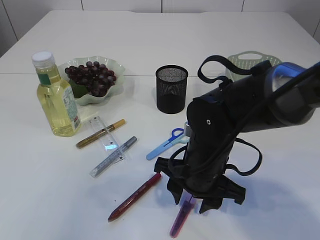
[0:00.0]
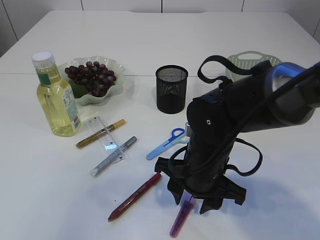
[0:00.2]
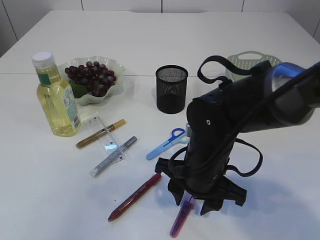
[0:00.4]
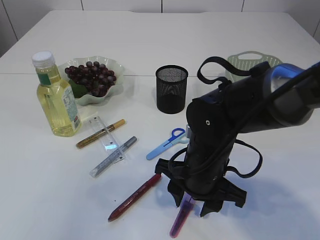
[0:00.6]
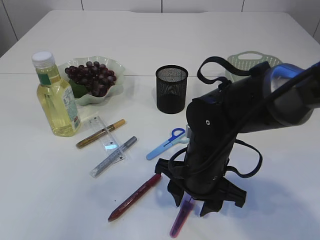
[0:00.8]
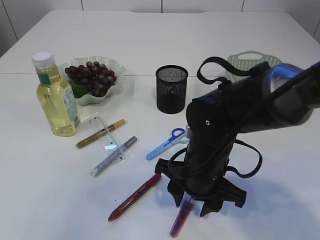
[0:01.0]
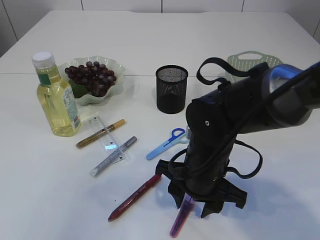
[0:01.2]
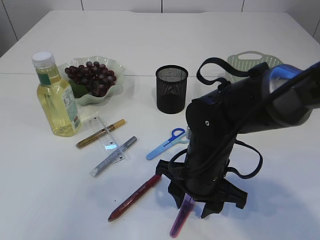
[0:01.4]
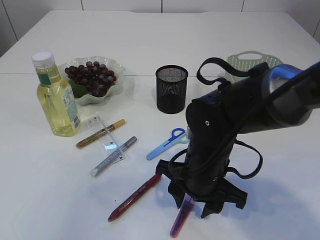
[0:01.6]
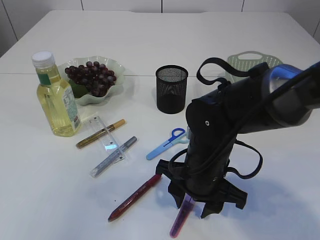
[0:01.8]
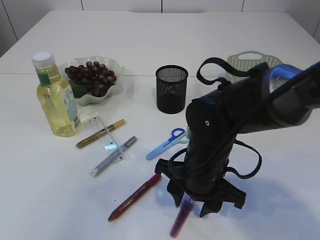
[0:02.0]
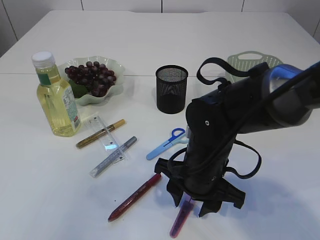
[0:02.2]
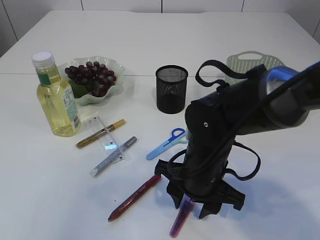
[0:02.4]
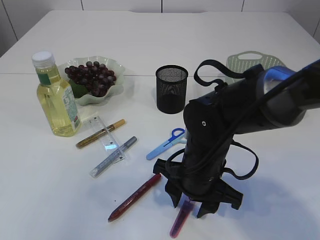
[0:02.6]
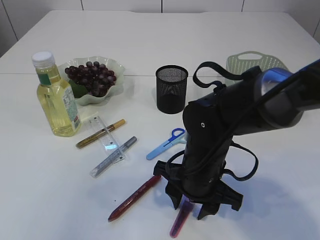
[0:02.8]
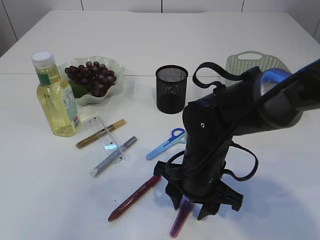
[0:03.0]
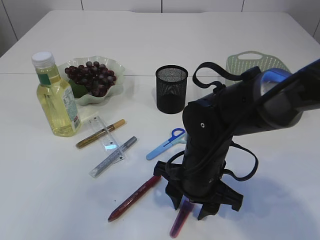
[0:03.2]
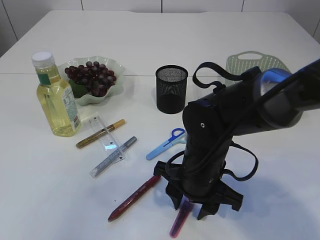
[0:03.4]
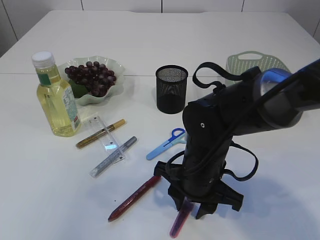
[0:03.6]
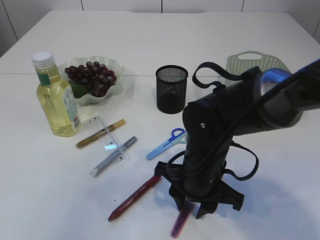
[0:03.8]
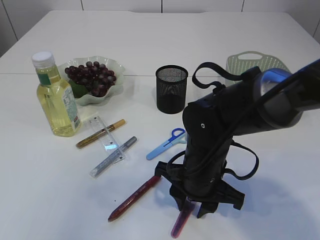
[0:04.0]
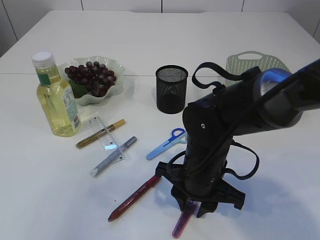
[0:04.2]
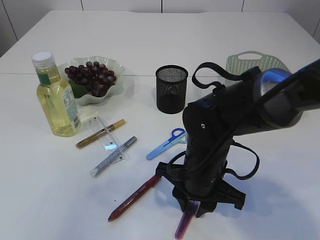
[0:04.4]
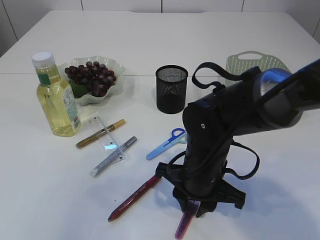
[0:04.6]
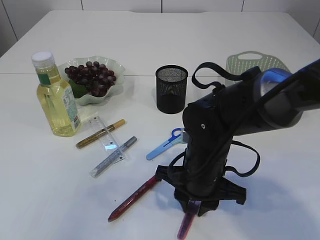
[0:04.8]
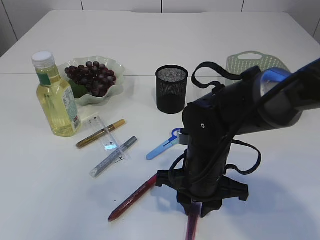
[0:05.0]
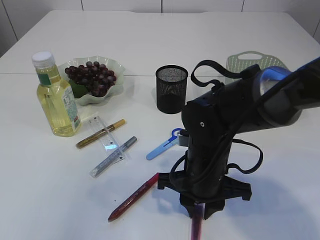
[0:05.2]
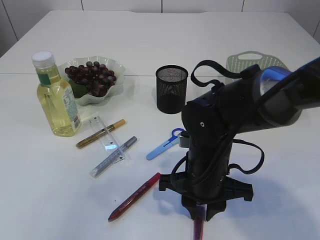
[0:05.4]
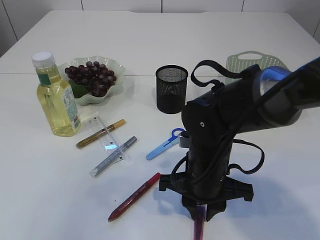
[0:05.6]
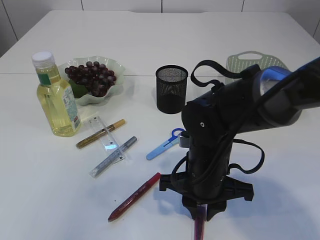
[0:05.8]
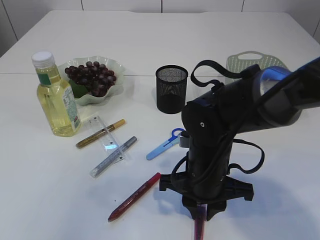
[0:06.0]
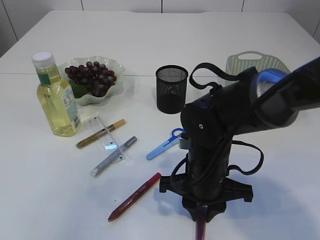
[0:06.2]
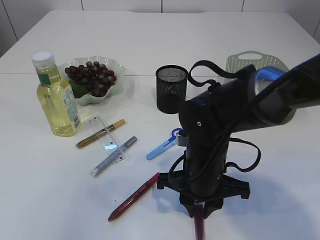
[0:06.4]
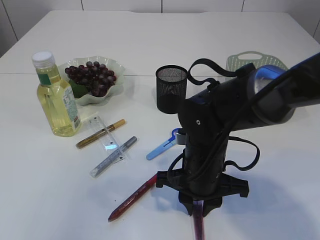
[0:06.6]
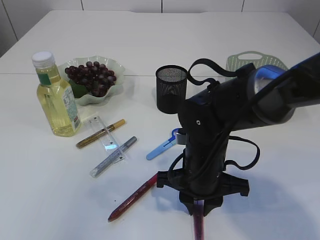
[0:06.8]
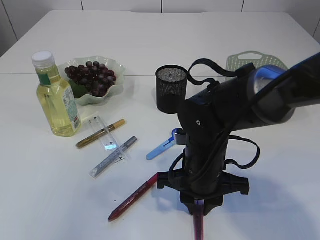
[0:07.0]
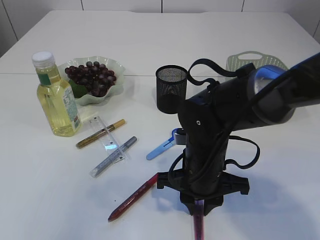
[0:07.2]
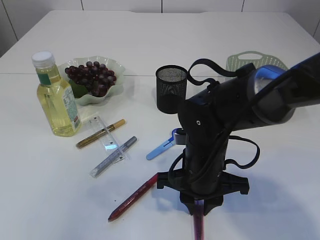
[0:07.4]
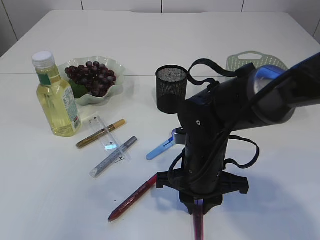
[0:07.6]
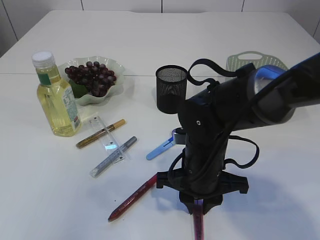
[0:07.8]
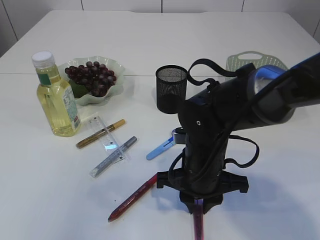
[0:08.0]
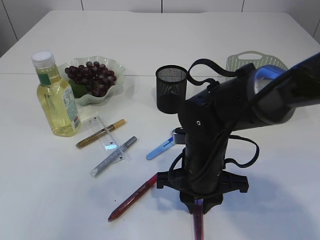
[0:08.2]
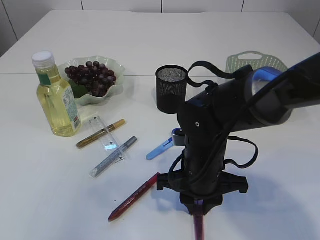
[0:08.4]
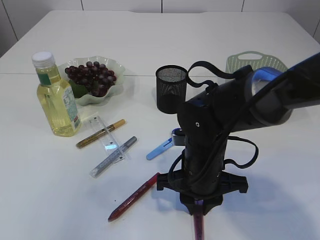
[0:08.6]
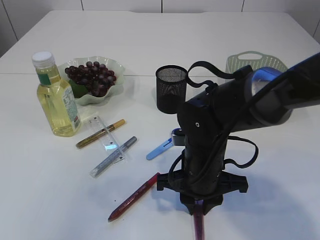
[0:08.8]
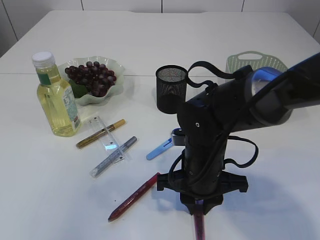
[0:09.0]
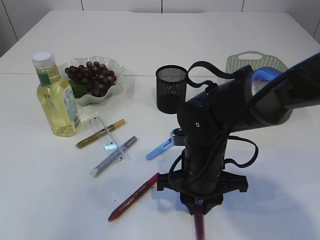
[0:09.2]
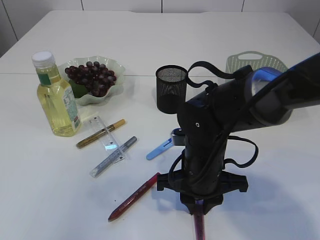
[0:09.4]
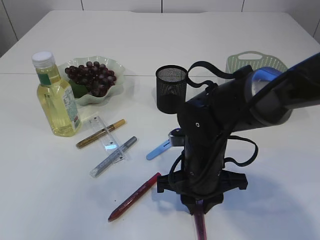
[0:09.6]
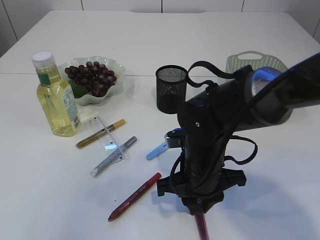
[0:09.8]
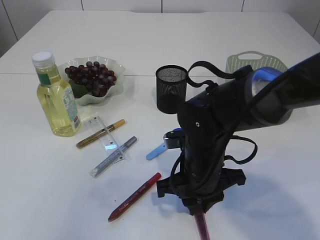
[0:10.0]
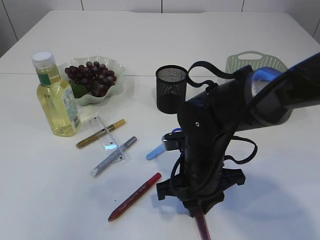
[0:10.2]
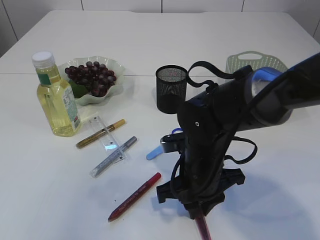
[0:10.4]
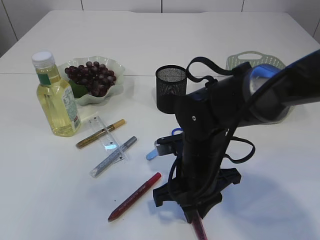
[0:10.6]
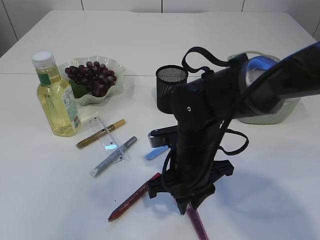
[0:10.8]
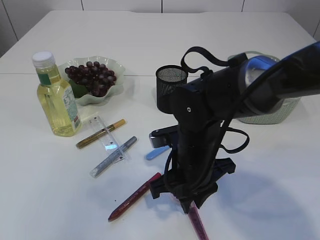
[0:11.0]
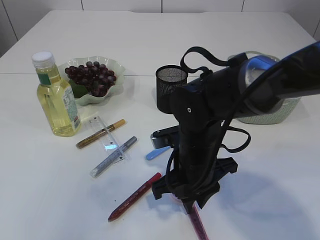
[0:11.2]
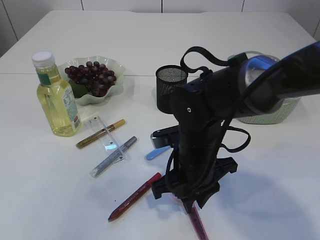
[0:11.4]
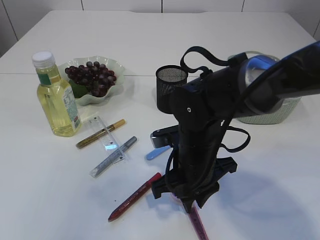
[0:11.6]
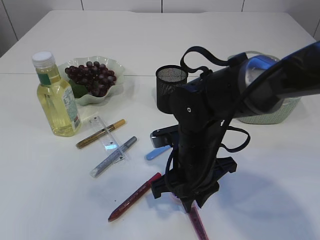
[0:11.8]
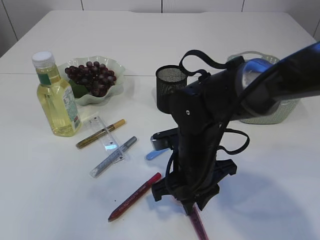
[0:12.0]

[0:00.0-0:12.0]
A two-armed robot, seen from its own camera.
0:00.0 to 0:04.4: Neither gripper changes place.
0:04.4 to 0:06.0: The grippers move only a little.
0:06.0 to 0:07.6: Both grippers stay about where they are.
0:07.6 to 0:09.0: Neither gripper changes place.
0:09.0 to 0:10.4: The grippers stay close to where they were, moving slightly.
0:10.4 to 0:12.0: There are only small adjustments of the grippers.

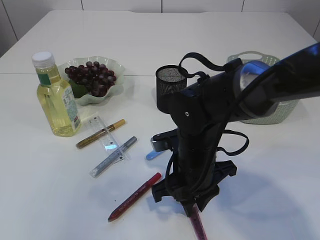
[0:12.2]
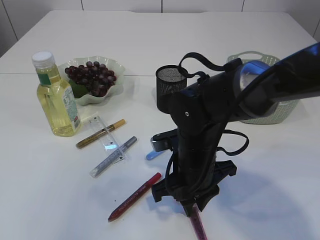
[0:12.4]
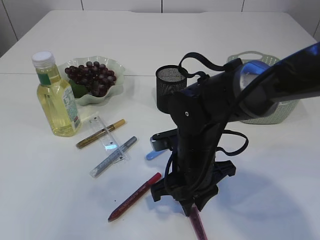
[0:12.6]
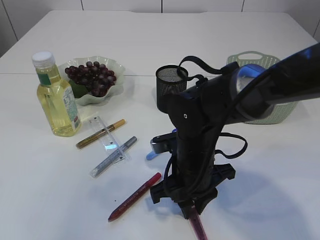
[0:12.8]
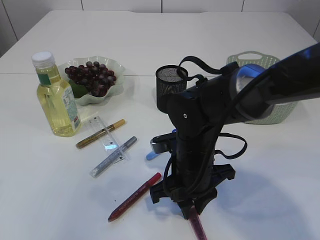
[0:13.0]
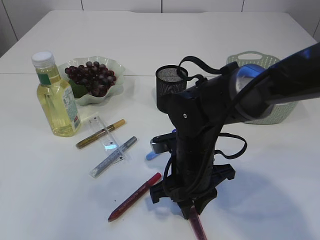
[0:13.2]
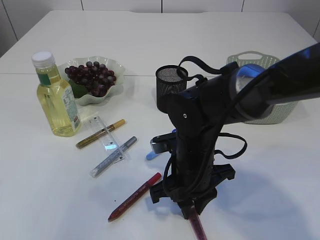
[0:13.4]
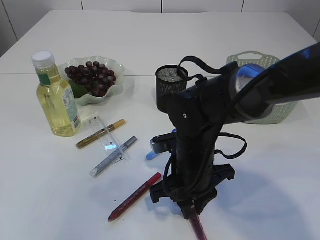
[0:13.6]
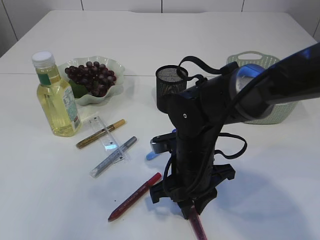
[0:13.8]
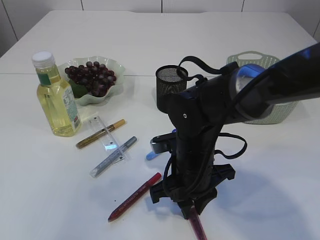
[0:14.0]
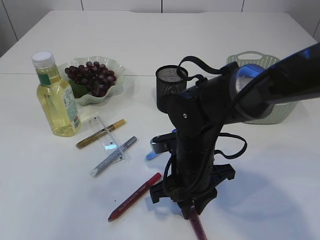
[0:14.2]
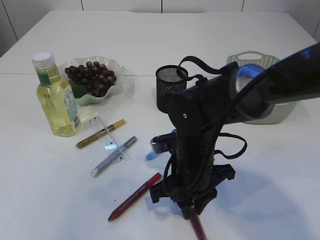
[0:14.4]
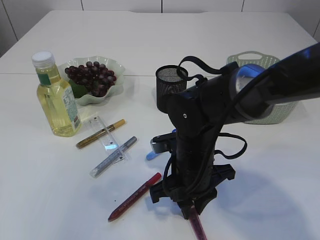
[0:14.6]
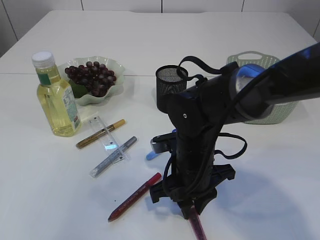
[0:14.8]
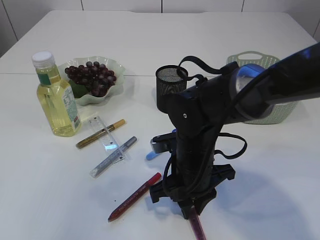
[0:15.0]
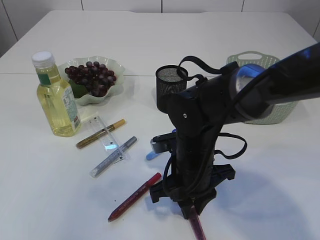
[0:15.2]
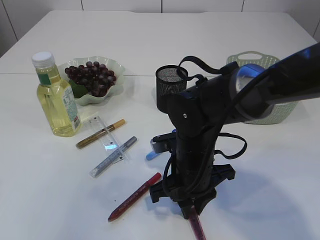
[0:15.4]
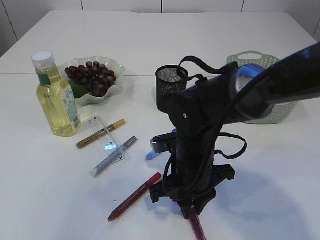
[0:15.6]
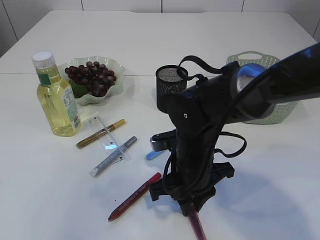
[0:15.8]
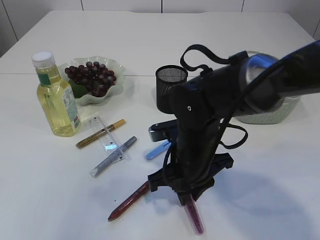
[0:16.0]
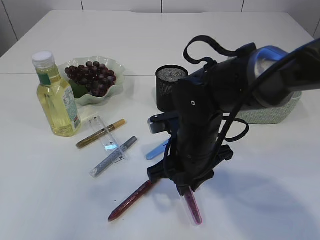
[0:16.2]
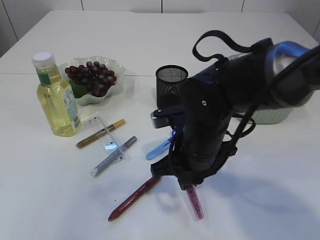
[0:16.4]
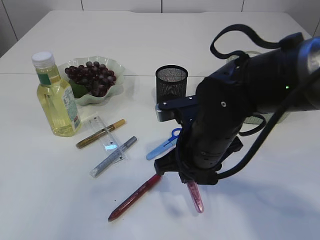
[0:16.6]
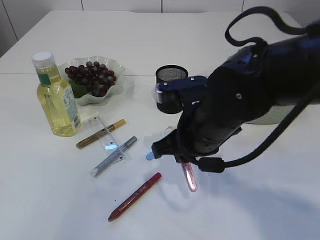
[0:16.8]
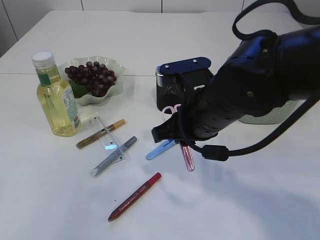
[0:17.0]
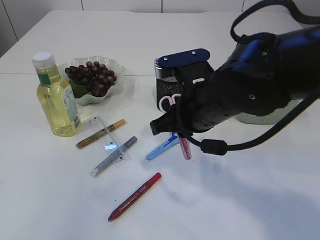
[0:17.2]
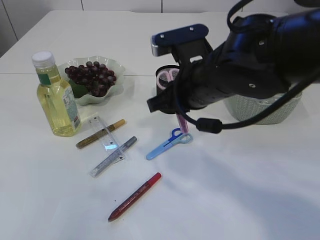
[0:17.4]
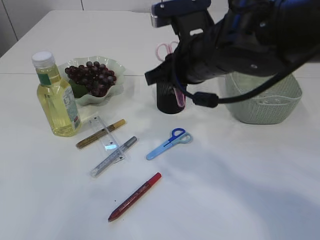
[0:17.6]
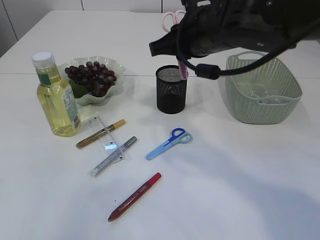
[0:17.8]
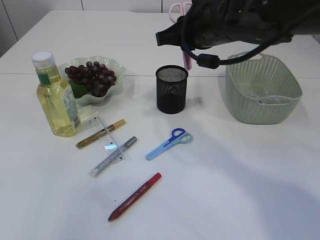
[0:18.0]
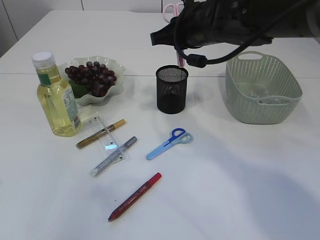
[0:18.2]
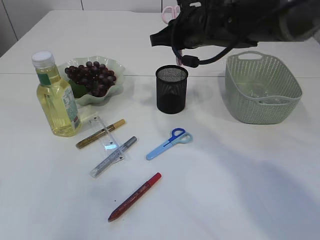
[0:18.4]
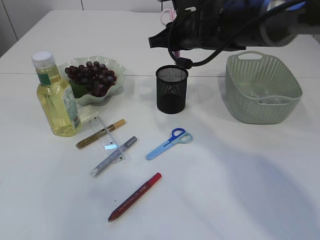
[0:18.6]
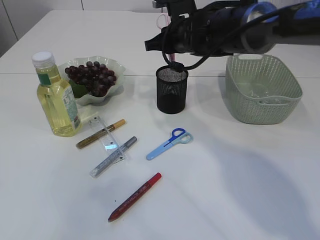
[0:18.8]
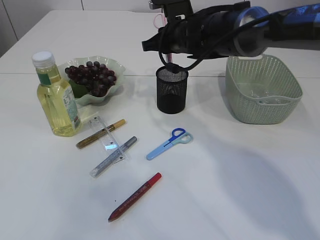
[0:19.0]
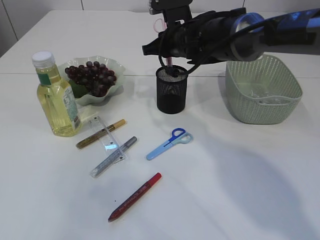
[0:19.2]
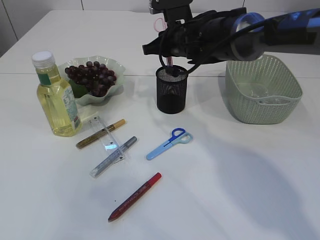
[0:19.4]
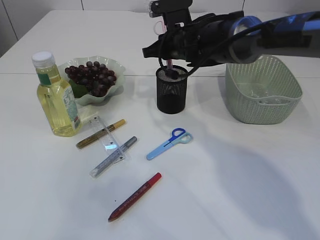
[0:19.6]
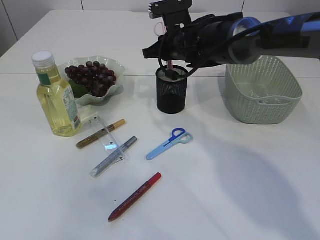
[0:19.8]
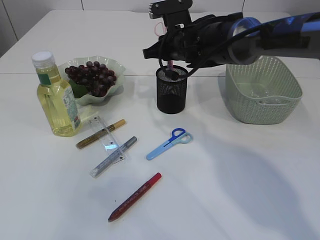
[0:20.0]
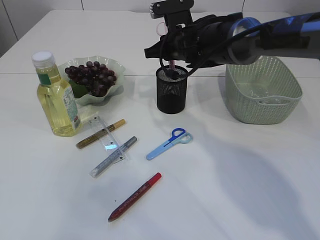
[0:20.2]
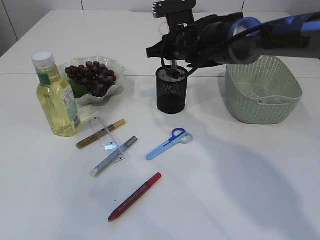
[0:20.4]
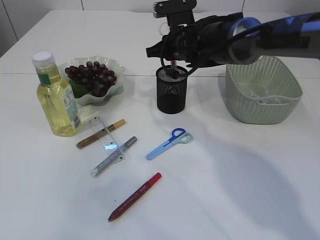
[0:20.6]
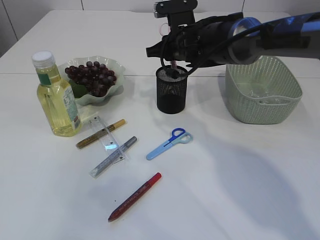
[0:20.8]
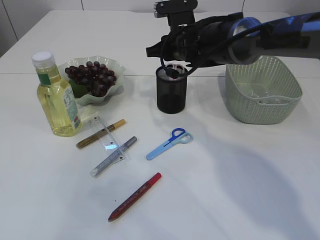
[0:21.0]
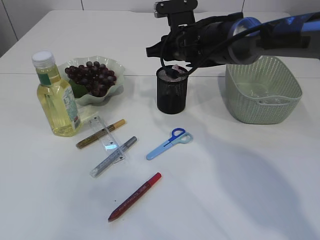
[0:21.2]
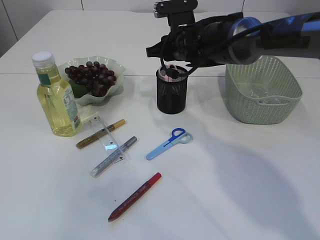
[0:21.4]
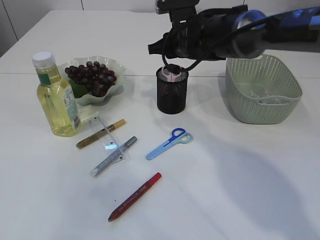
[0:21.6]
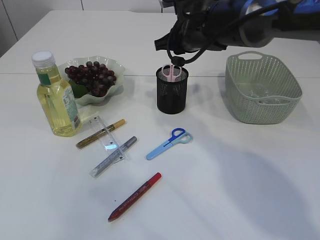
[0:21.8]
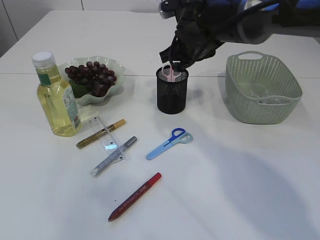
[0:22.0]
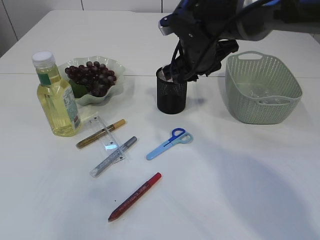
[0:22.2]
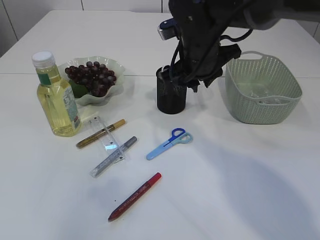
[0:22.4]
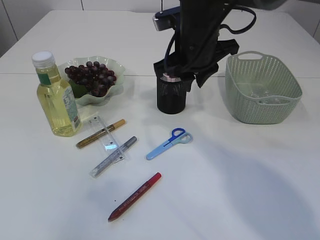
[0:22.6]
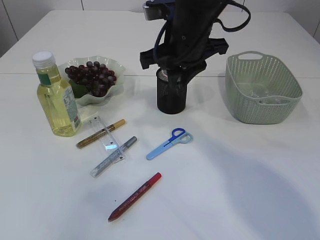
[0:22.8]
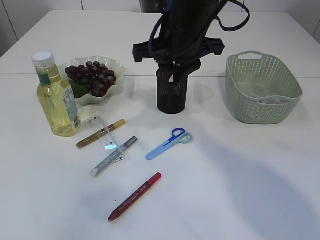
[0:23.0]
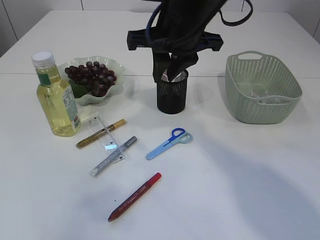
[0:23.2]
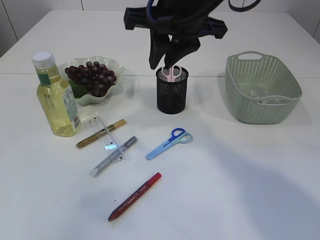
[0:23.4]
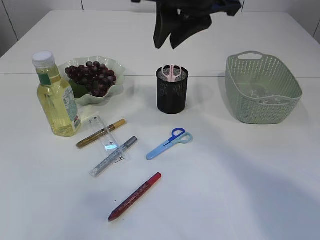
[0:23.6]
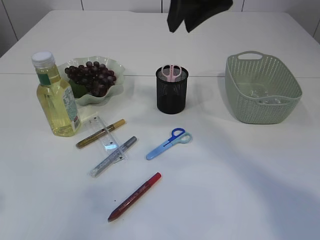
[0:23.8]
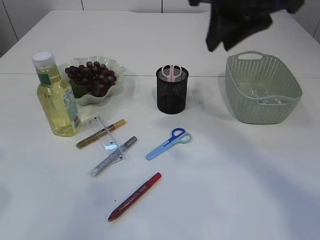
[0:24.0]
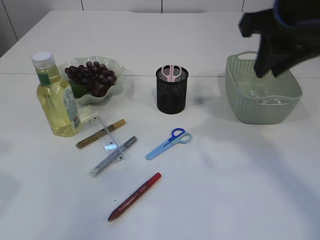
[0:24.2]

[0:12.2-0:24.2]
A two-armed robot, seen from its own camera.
Step, 0:12.2 to 0:16.4: pick up the pink scissors.
Step, 0:16.6 to 0:21.4: Place the pink scissors into the pen holder.
0:12.2 to 0:15.2: Both grippers stay about where they are.
0:15.2 to 0:16.6: The right gripper shifts approximately 5 cm upward.
0:16.6 to 0:18.2: The right gripper goes some 15 cm upward and forward.
0:18.2 to 0:19.8: The right gripper goes roughly 10 cm forward and downward.
0:19.8 to 0:21.2: Both grippers stay about where they are.
0:21.2 to 0:22.6: The right gripper goes about 10 cm backward and upward.
0:22.6 to 0:24.2: The right gripper shifts roughly 15 cm to the right, backward and upward.
